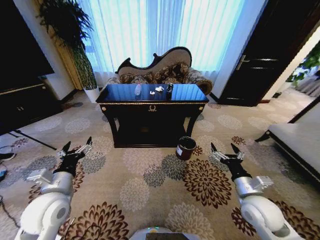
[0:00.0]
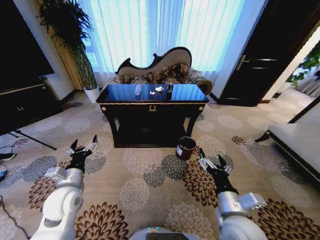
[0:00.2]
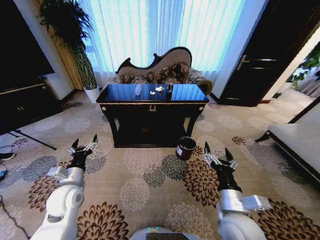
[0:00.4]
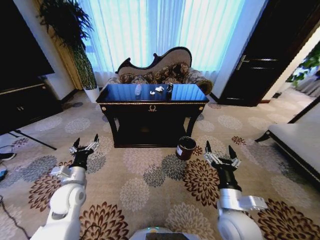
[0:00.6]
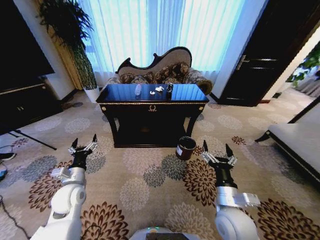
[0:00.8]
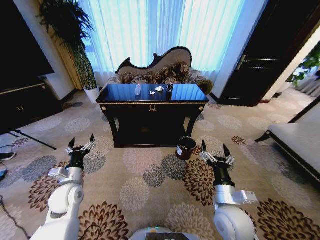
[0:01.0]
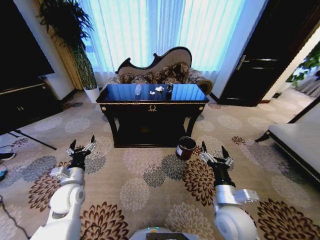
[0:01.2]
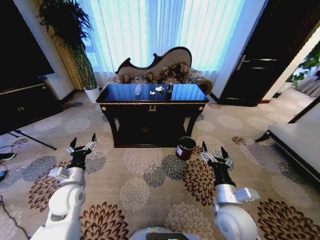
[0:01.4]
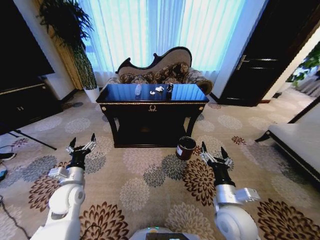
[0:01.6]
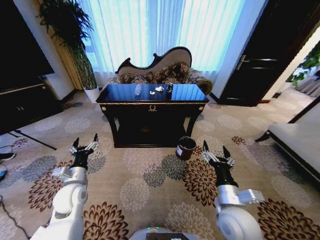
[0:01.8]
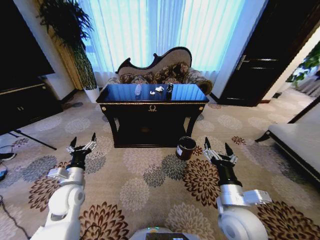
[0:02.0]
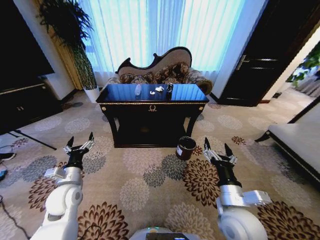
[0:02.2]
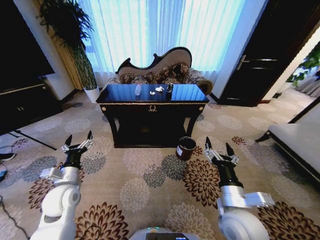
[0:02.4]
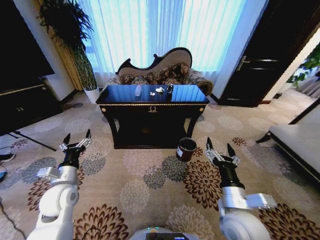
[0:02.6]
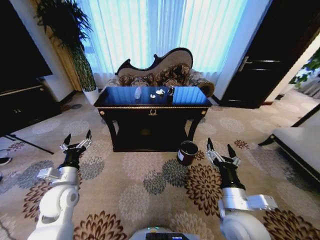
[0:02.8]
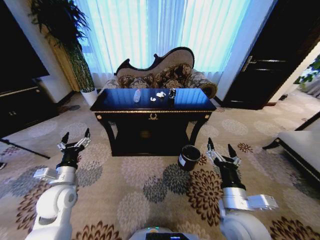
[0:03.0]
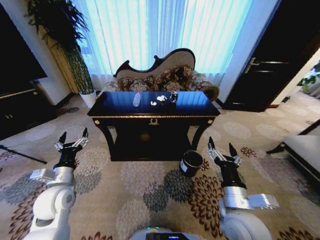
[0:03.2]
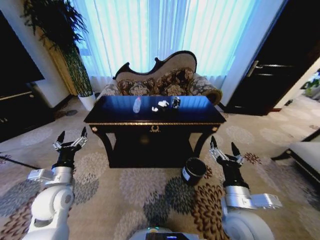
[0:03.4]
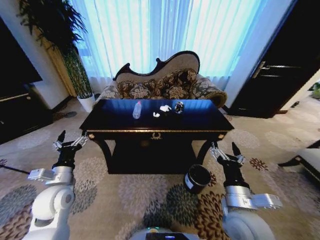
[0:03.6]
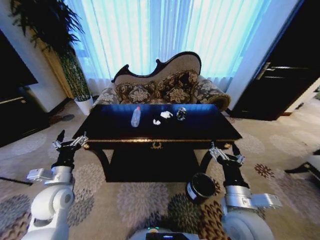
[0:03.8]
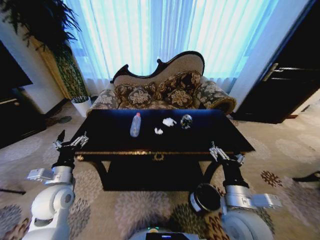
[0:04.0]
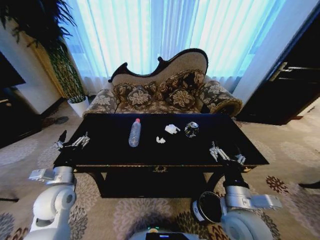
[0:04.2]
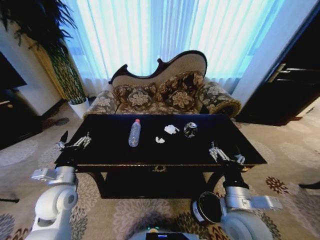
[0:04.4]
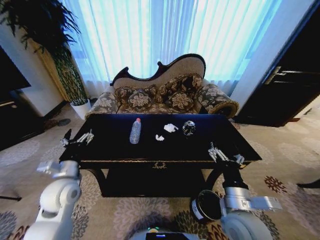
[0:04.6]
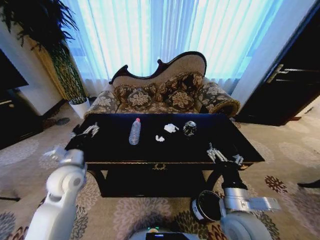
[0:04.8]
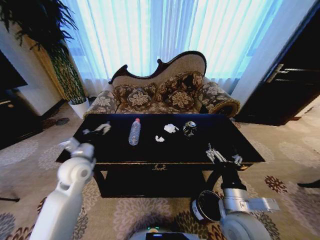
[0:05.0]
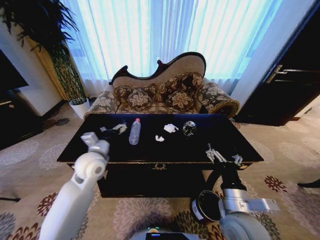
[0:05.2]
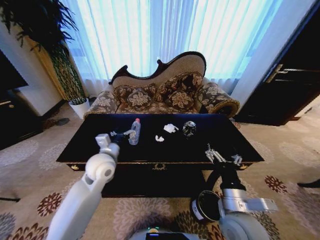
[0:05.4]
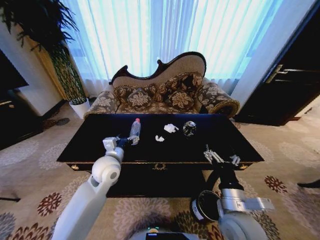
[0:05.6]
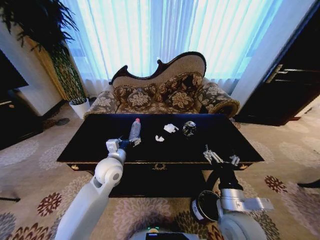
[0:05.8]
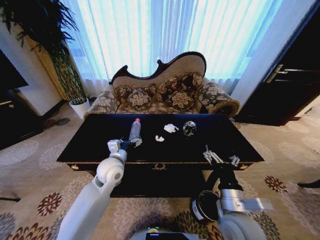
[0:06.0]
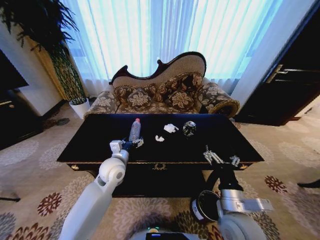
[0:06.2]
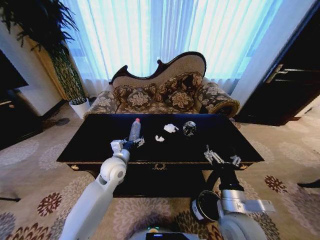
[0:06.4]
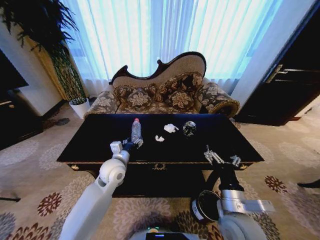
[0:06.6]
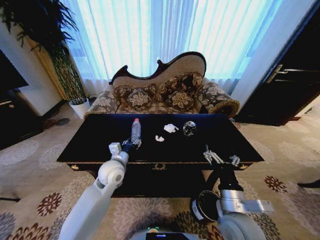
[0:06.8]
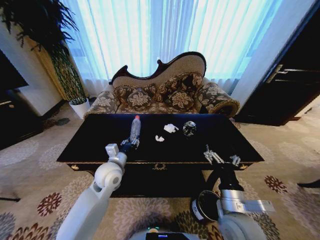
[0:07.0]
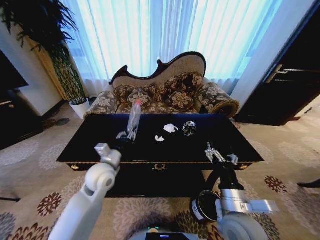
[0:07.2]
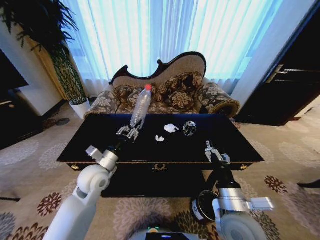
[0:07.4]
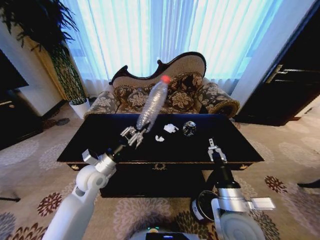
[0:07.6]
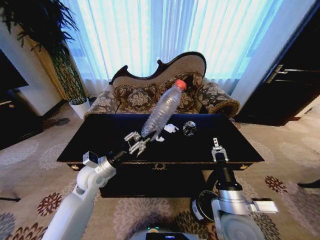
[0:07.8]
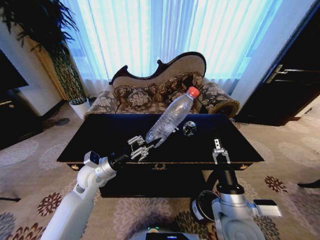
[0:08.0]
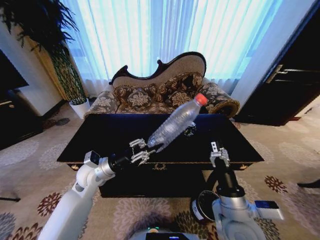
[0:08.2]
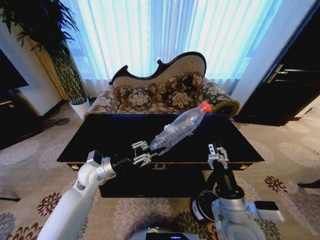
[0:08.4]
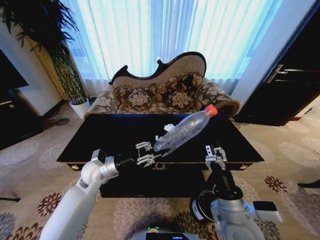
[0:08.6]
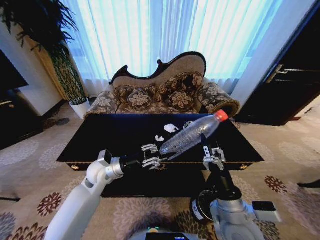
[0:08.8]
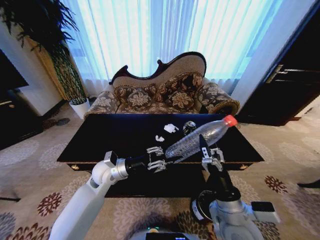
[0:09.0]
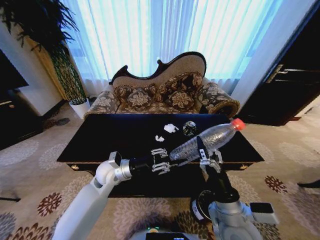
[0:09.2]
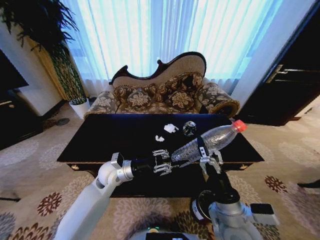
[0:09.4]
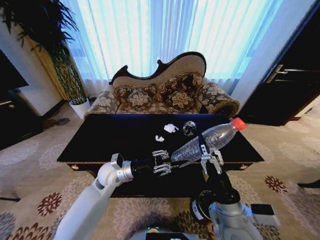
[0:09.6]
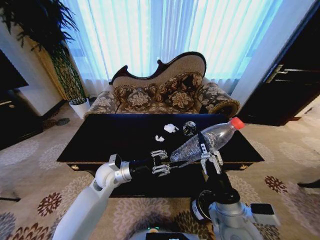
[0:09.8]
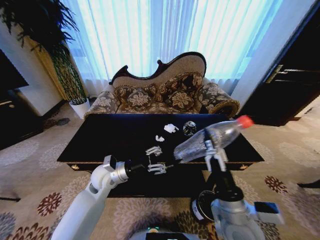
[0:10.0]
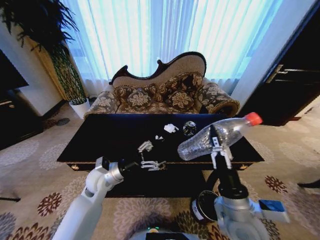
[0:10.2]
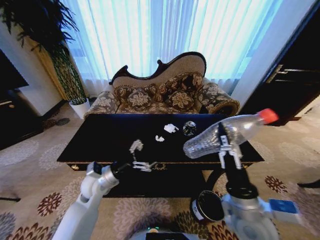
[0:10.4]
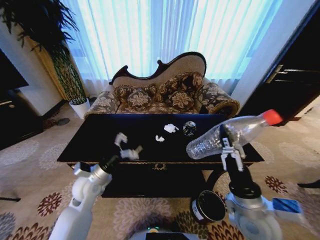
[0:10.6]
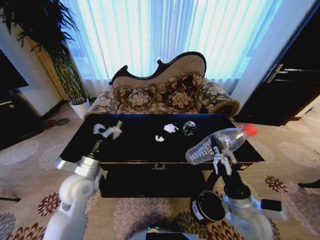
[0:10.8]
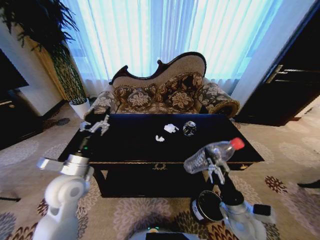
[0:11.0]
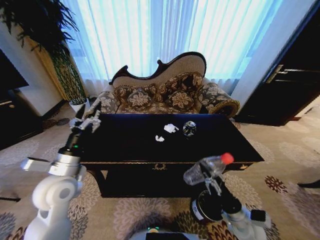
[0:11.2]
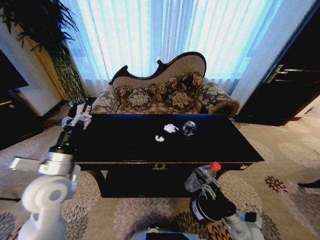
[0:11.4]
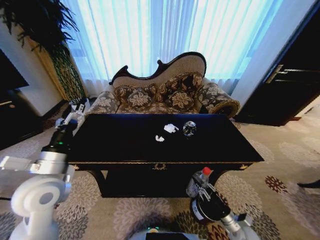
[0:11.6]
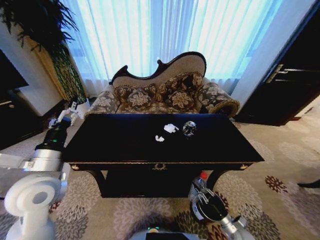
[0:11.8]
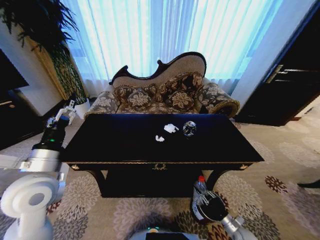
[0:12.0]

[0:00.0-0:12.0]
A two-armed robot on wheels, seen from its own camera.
Task of the whole recording: Move to the front of the table and place the trash on the table into the trash bin.
0:04.4 to 0:06.0: The left gripper moves to the right and forward, about 20 cm.
0:06.0 to 0:07.6: The left gripper heads to the left, covering some 5 cm, and closes its fingers.
0:09.0 to 0:10.4: The right gripper closes; the left gripper ends up roughly 5 cm from where it was, and opens up.
0:10.4 to 0:12.0: The right gripper moves downward and to the right, about 35 cm, while the left gripper travels upward, to the left and backward by roughly 15 cm.

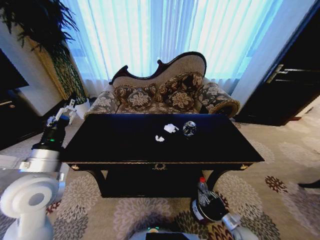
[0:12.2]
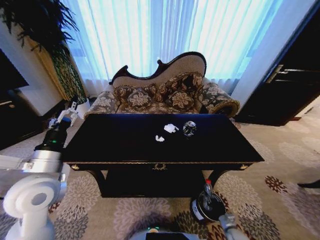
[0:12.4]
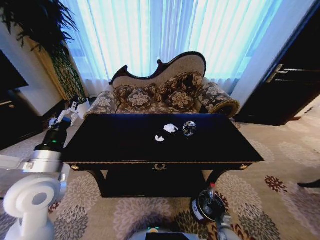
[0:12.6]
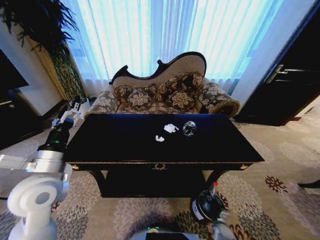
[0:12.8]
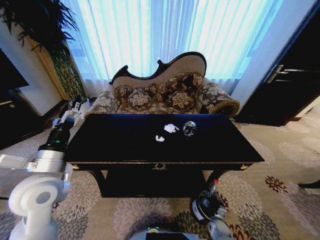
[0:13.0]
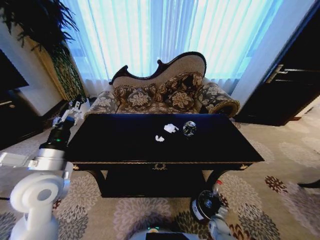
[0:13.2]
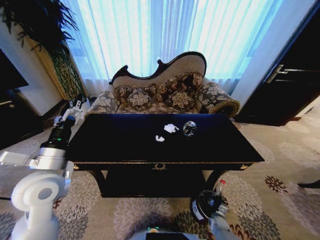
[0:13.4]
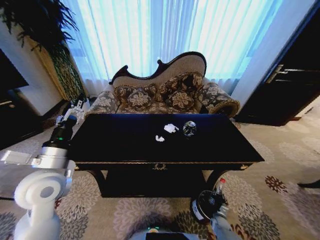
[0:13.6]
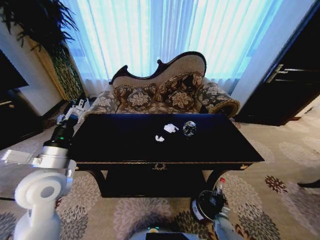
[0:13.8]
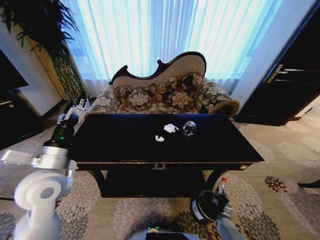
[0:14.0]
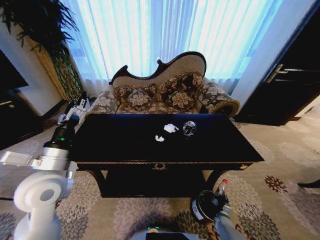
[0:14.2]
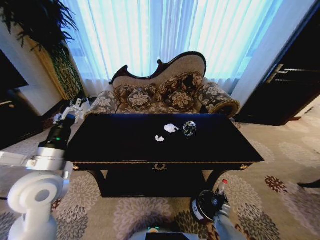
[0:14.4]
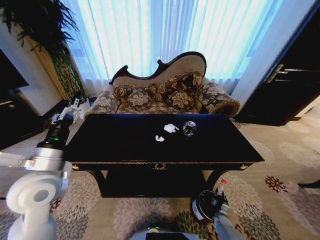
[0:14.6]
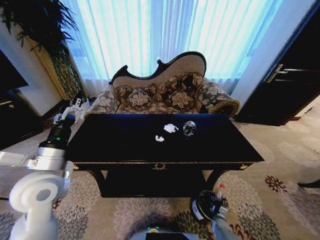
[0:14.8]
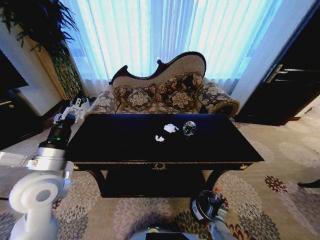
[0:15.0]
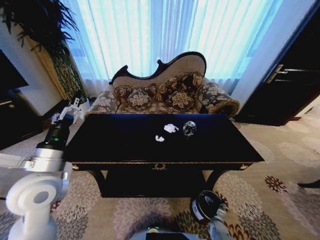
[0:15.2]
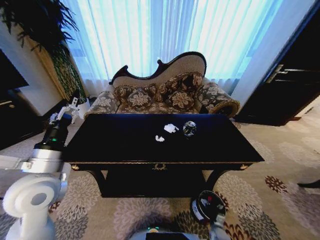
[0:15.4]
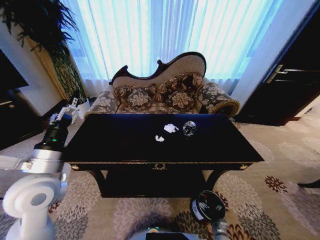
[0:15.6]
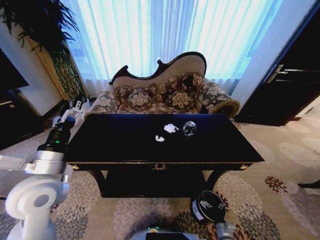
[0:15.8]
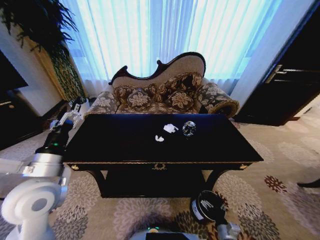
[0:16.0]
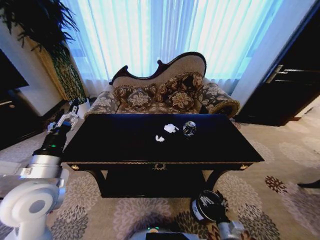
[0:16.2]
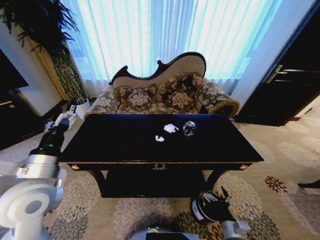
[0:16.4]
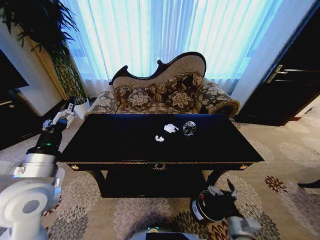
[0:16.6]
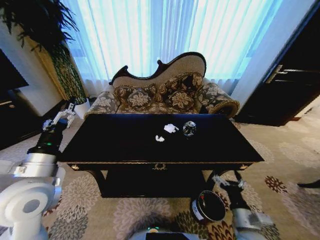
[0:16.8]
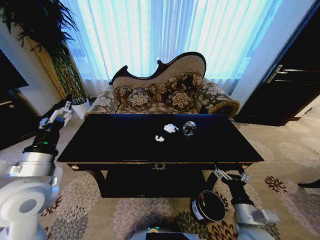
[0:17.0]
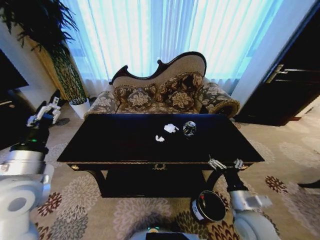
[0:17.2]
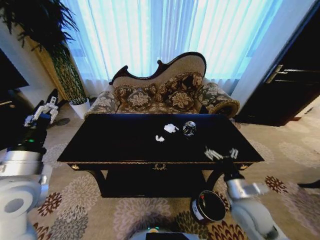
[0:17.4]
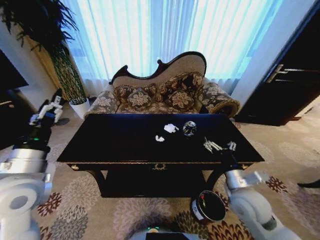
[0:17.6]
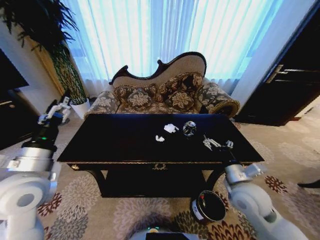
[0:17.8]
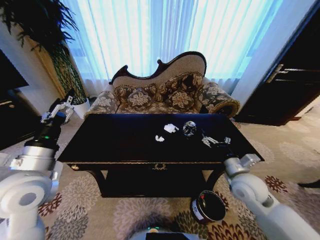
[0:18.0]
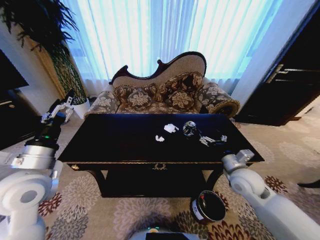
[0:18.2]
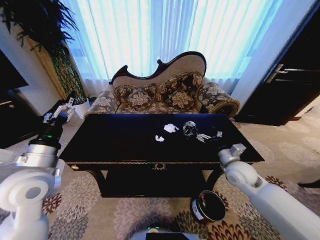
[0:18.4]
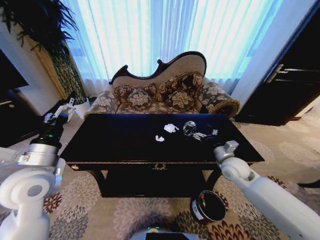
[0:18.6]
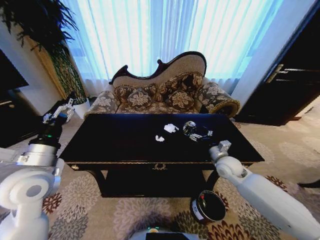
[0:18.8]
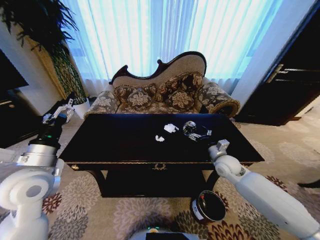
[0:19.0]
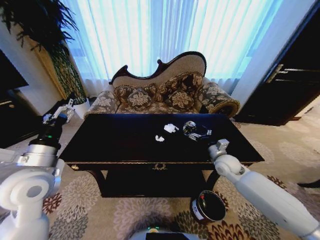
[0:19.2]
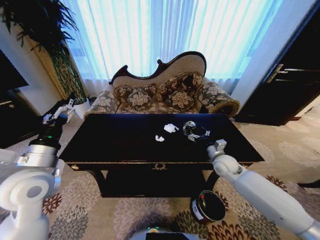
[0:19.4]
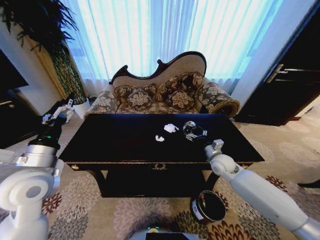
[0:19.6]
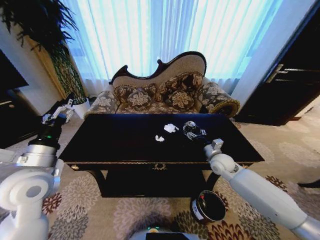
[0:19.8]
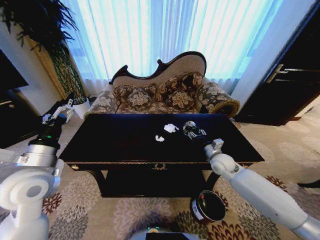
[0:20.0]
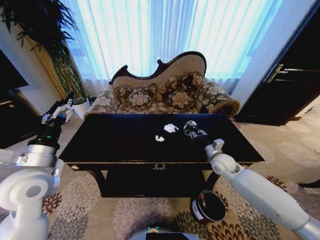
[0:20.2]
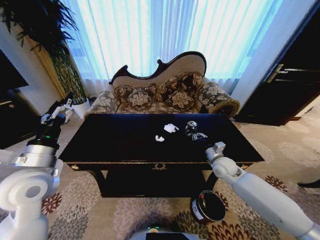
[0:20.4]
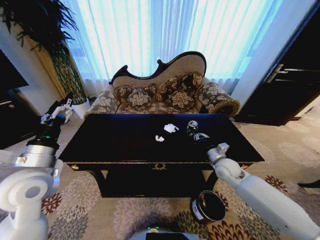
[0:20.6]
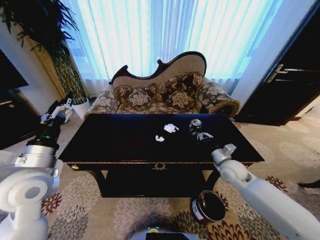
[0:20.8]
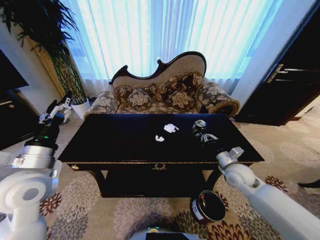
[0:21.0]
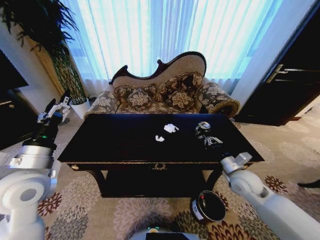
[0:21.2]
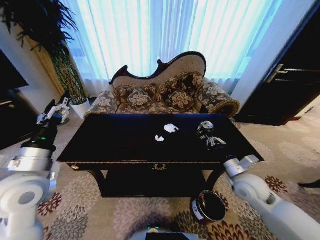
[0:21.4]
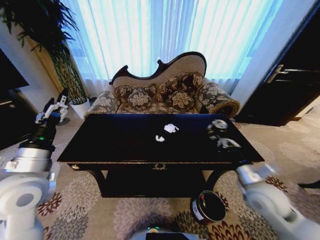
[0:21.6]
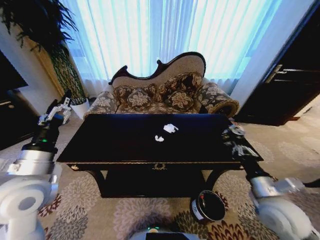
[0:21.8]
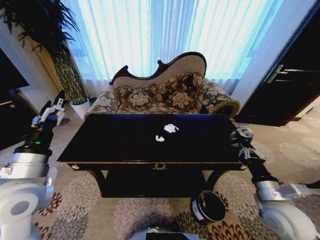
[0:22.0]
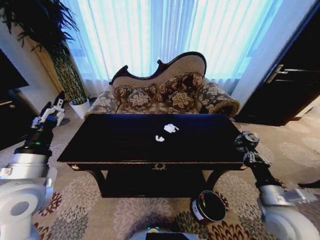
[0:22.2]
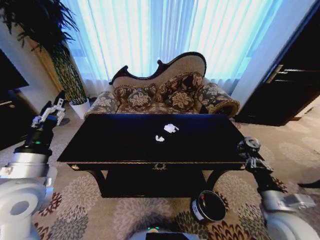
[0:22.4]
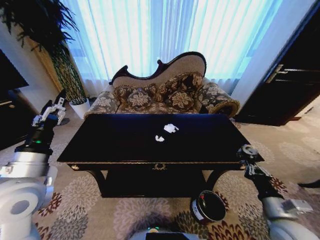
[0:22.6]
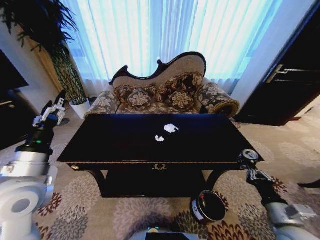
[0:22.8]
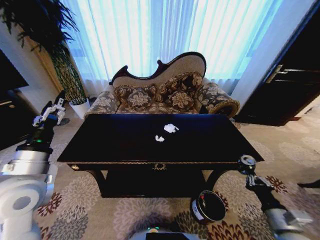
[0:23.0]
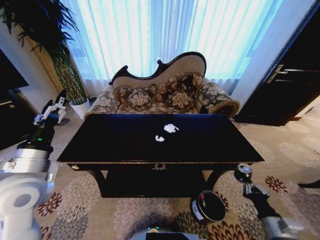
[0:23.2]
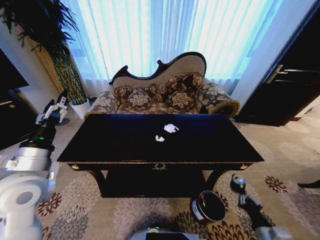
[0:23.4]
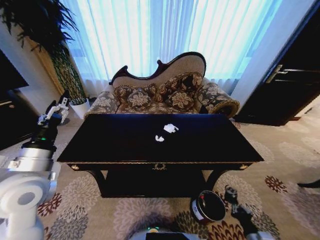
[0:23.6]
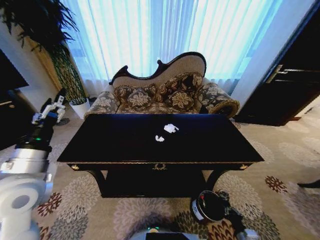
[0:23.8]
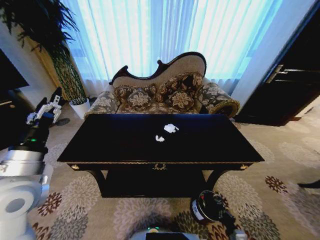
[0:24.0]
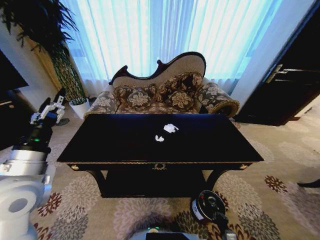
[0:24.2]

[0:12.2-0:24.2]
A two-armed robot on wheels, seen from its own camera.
Task of the whole recording: Move to the front of the table and place the trash on the table into the trash bin.
0:12.2 to 0:13.8: The right gripper is displaced downward and forward by some 10 cm.
0:13.8 to 0:15.2: The right gripper opens.
0:15.2 to 0:16.6: The right gripper heads upward, covering some 30 cm.
0:16.6 to 0:18.2: The right gripper travels forward and upward by roughly 25 cm.
0:18.2 to 0:19.8: The right gripper goes about 10 cm forward.
0:19.8 to 0:21.2: The right gripper is displaced backward by approximately 10 cm, and closes.
0:21.2 to 0:22.6: The right gripper moves backward, approximately 15 cm.
0:22.6 to 0:24.2: The right gripper shifts some 30 cm downward.
